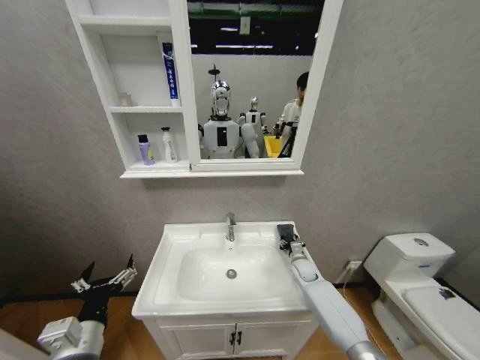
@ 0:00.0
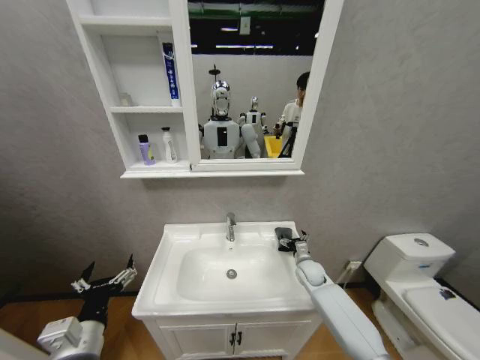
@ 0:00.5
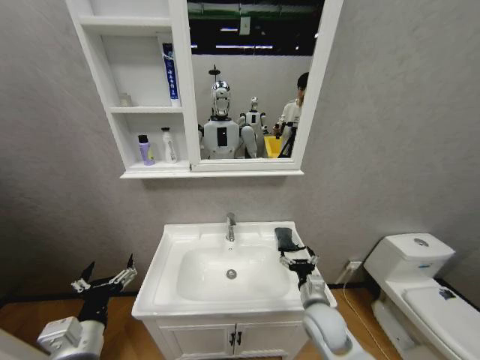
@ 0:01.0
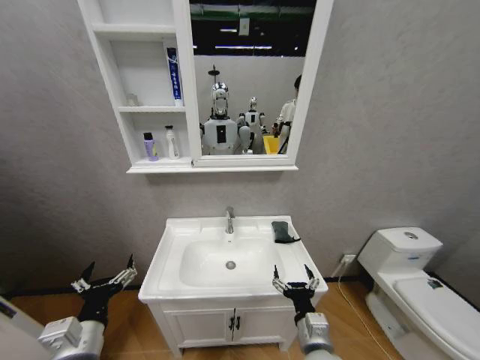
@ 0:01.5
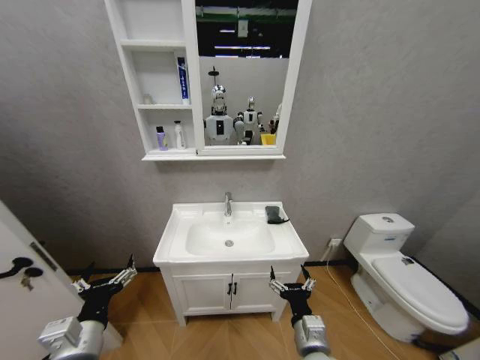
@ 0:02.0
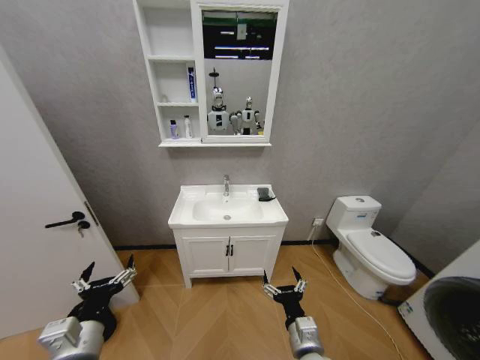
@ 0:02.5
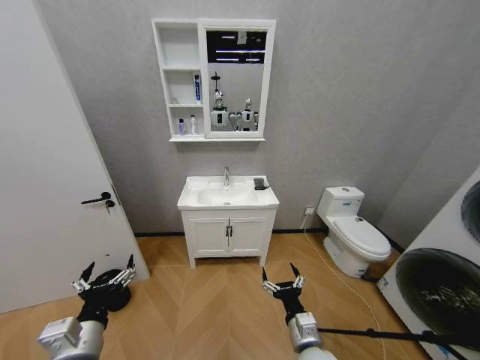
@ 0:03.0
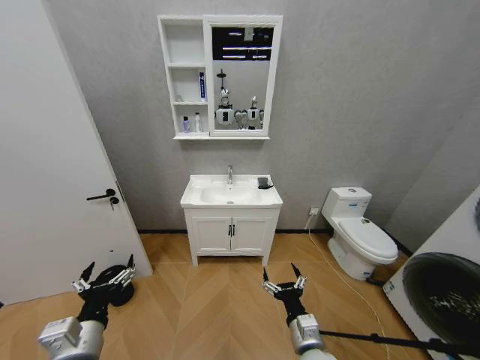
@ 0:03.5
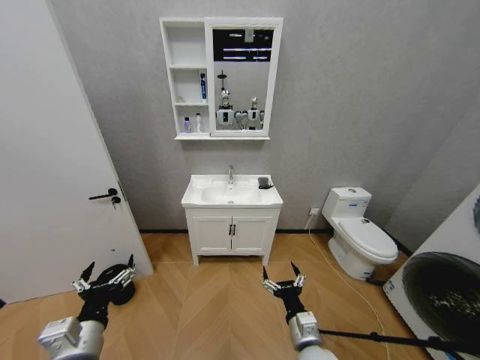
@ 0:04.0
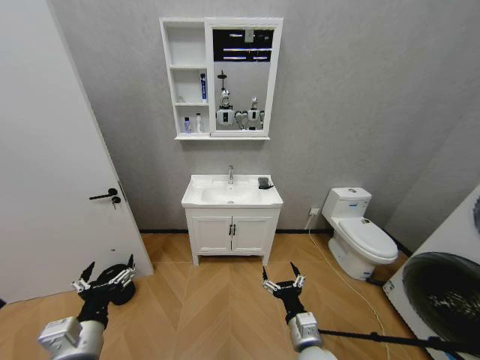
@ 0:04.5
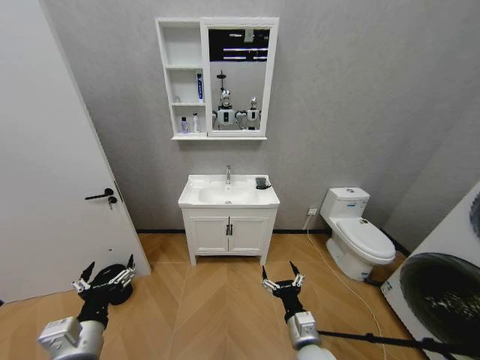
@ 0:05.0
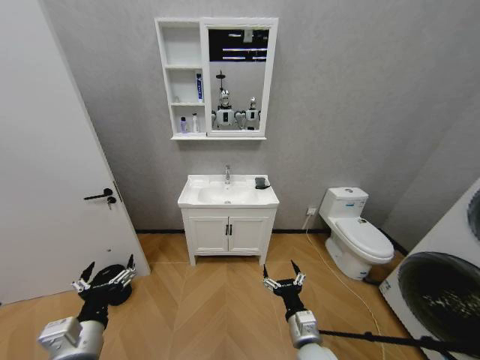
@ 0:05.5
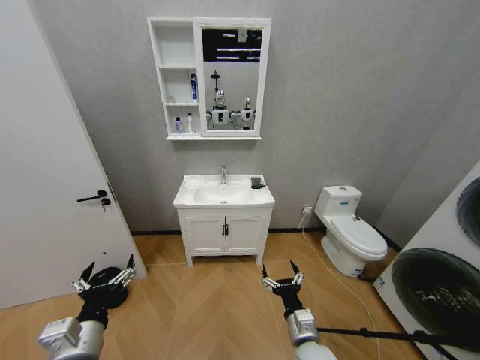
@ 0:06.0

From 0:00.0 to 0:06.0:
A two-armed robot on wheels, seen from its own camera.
Task of the whole recording: Move facial cleanser and shampoo from washbasin to cabinet, then wipe washbasin with towel.
From 0:00.0 to 0:02.0: The right gripper is displaced backward by approximately 30 cm, and opens its fingers.
From 0:04.0 to 0:06.0: The two grippers keep their place.
